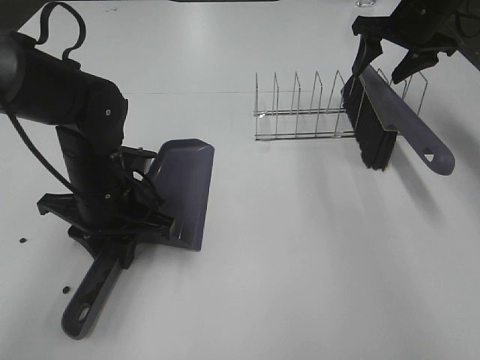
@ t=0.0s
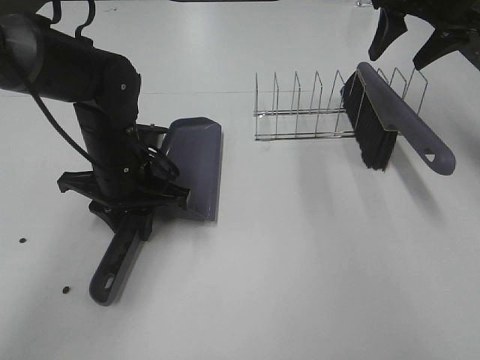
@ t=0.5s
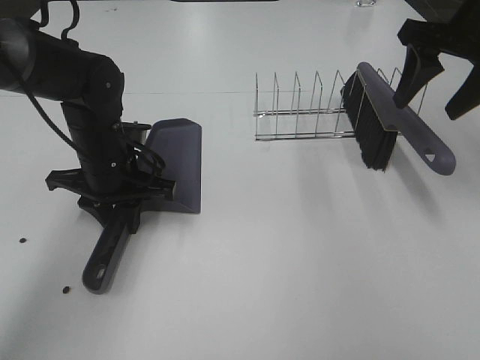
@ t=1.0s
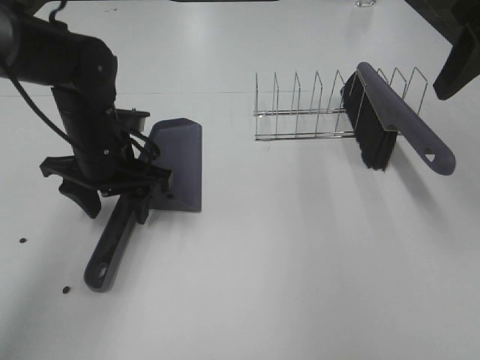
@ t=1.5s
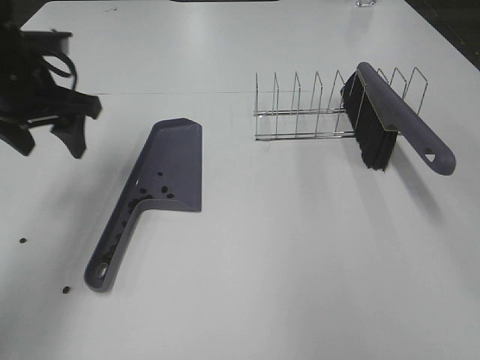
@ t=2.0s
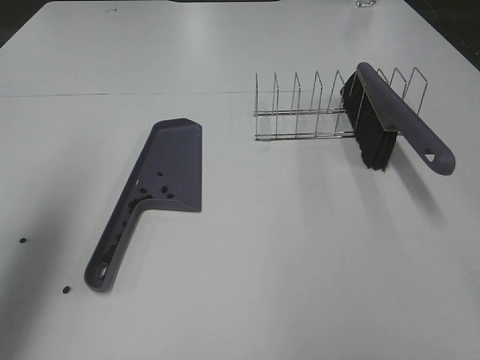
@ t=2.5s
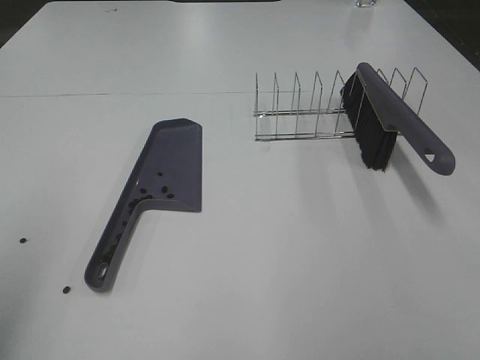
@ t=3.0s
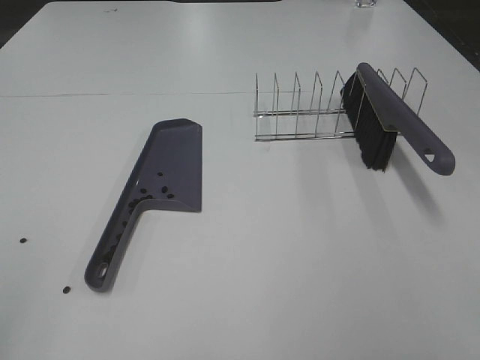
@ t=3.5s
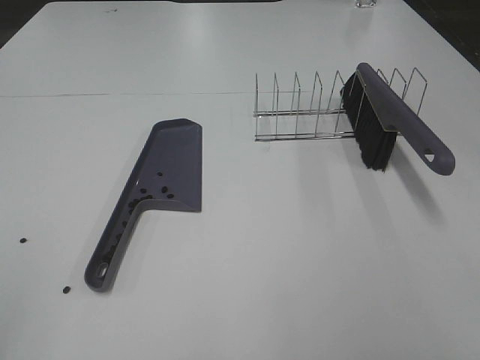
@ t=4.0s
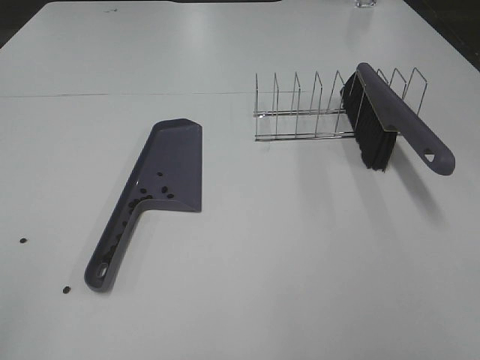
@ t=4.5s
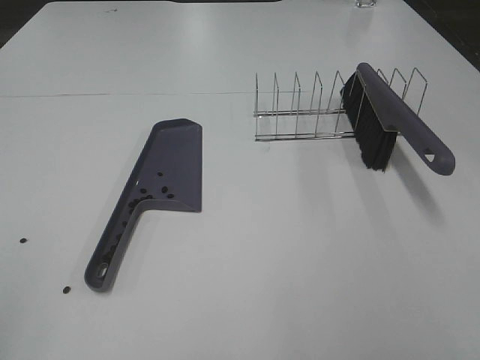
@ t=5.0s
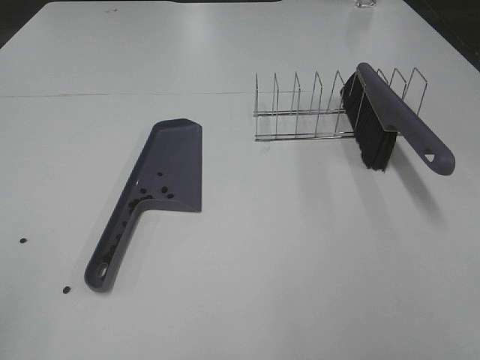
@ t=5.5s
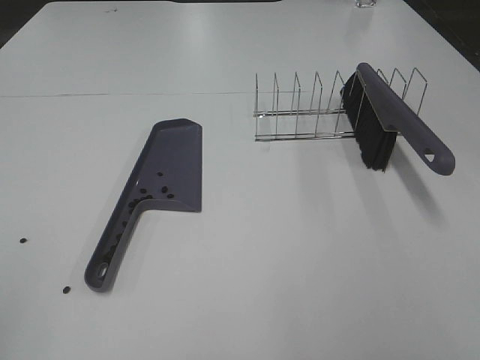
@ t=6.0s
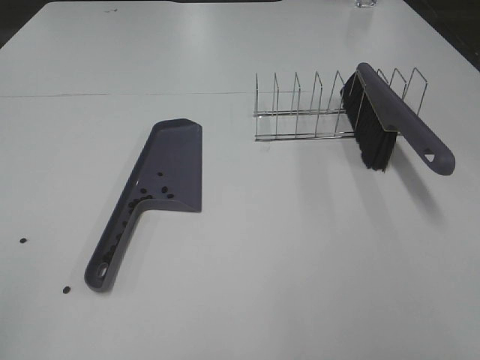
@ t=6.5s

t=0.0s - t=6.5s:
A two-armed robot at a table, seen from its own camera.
Task of the whole recording: Sweep Coffee Bean.
Step, t=0.0s - t=1.0s: Left hand:place the dustpan on the table.
t=0.0s - t=2.0s: The right gripper is displaced backward and upward by roughly 35 cm, while the left gripper is displaced upward, to the left and forward by approximately 15 cm, and opens.
t=2.0s - t=4.5s: The right gripper heads backward and downward, covering approximately 20 cm. Meanwhile the left gripper is displaced backward by about 35 cm.

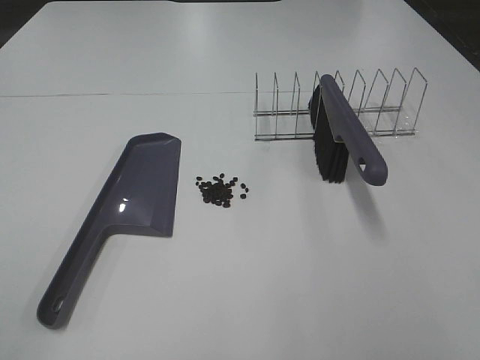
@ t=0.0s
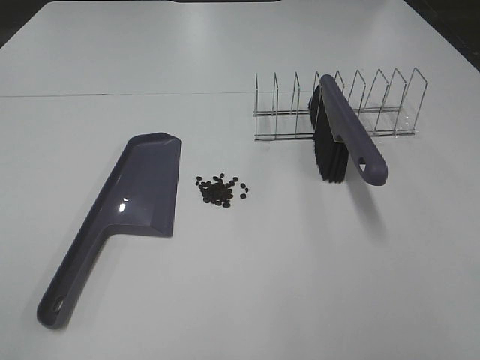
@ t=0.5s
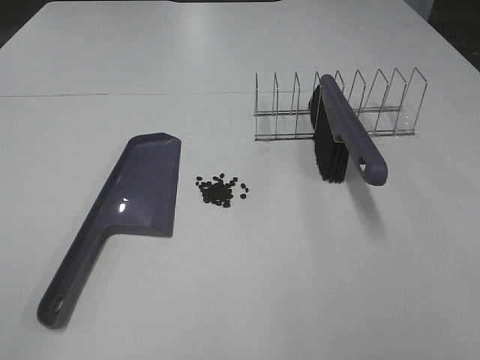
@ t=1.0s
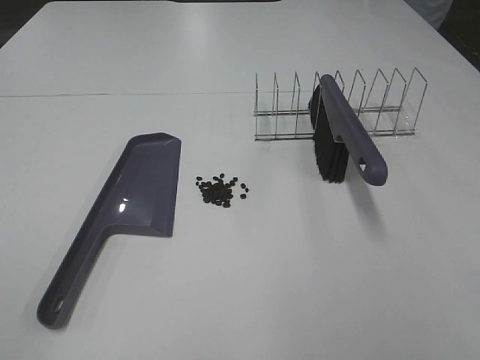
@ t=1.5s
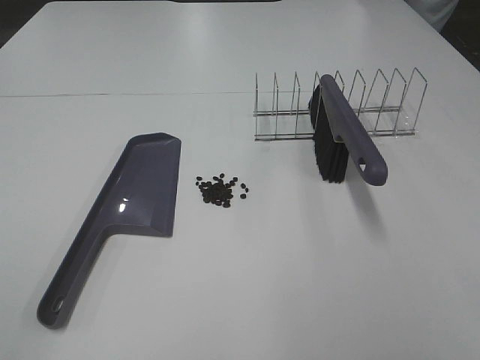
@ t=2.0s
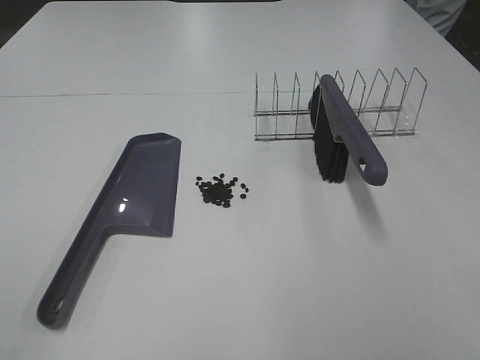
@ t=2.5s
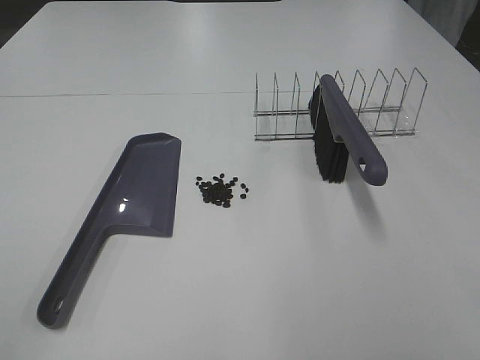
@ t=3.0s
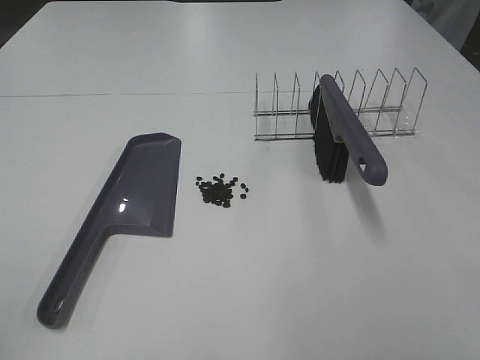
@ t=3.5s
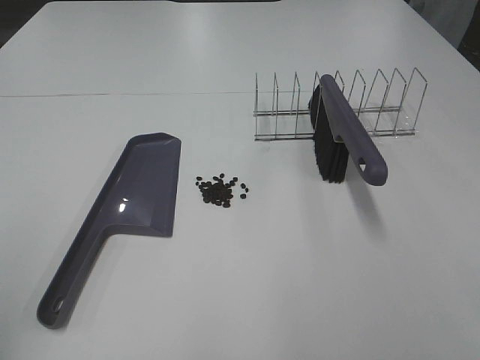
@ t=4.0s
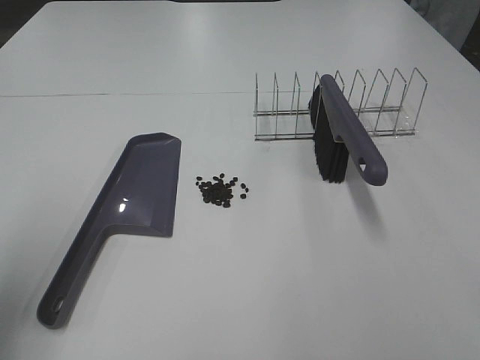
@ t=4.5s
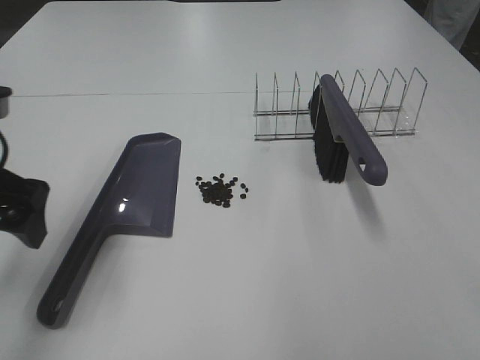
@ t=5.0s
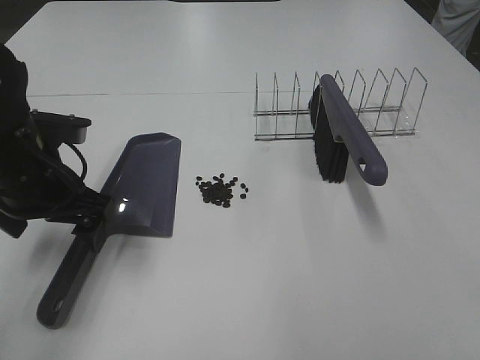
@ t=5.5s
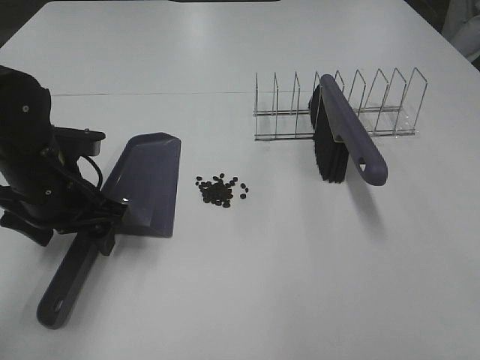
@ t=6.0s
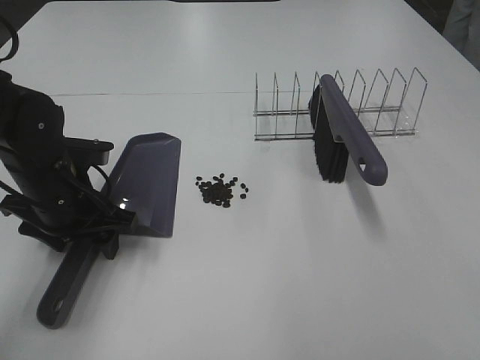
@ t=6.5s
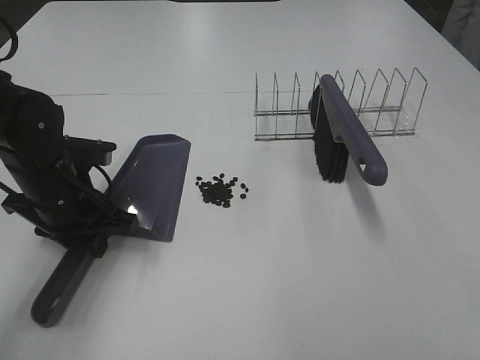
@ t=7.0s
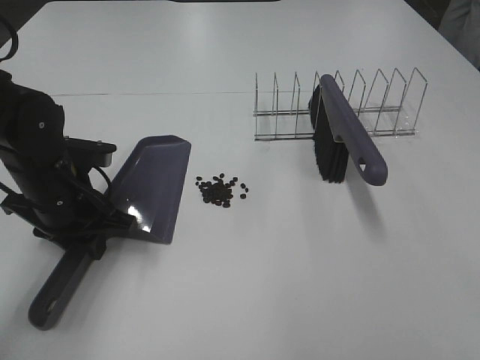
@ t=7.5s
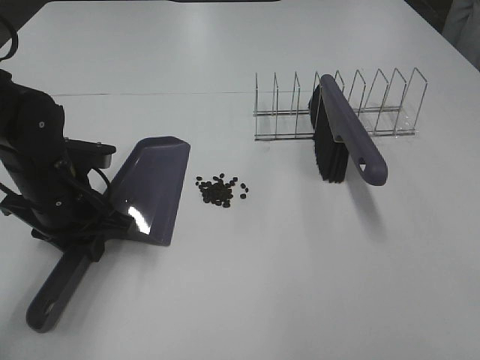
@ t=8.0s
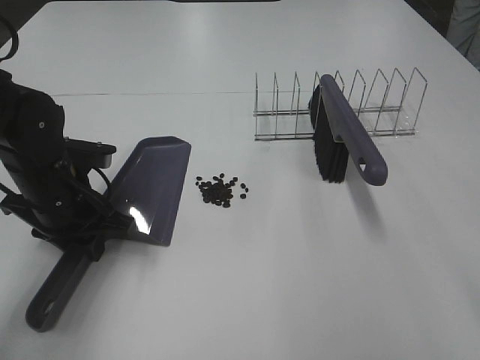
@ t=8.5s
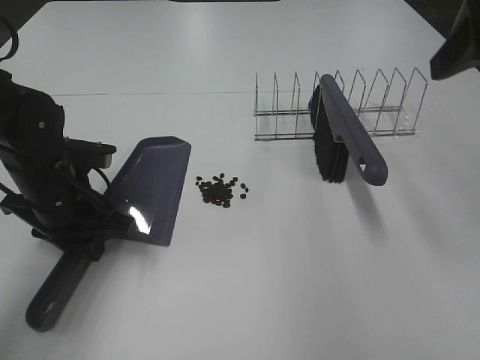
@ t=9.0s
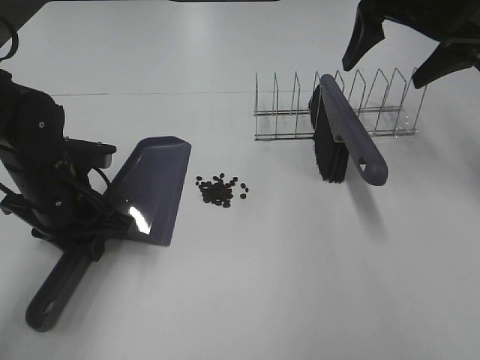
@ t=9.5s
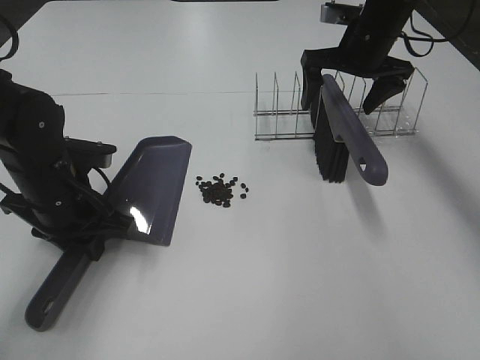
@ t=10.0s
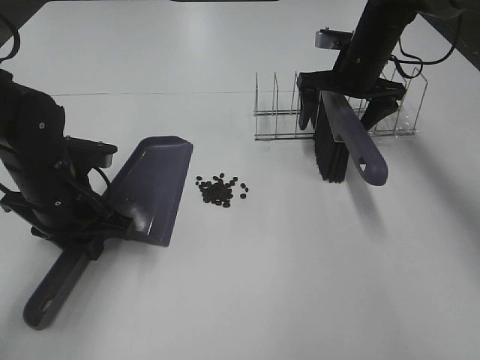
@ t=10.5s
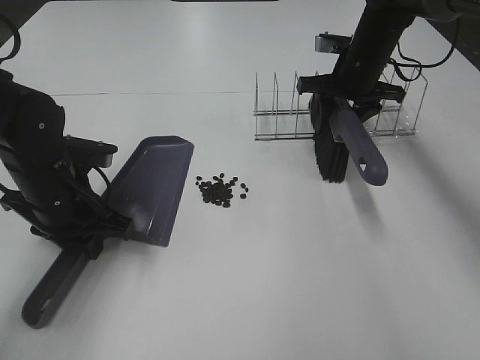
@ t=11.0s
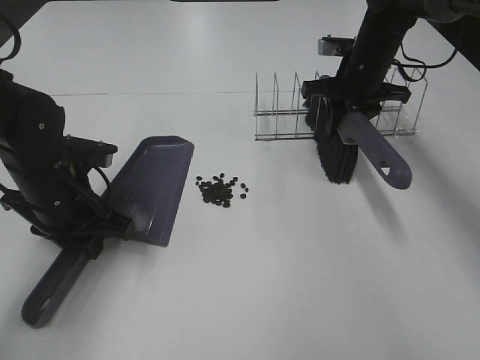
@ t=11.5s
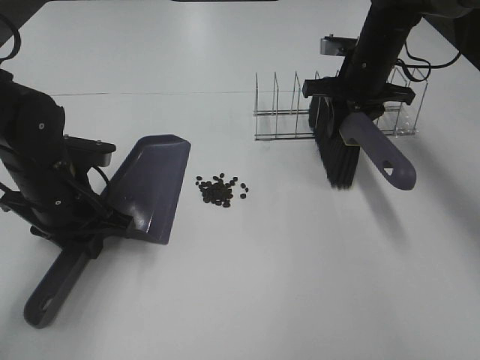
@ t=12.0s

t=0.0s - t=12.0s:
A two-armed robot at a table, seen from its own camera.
Task of the whole recording: Sweep Coffee Bean.
Step, t=0.0s - t=6.5s: Left hand: grab the dustpan.
Step, t=8.5s - t=11.0s: Right hand:grab the broom.
t=4.0s - t=6.0s: The left gripper is displaced forward, downward and to the right by approximately 35 cm.
t=6.0s - t=8.0s: The left gripper closes its fingers.
t=8.0s - t=10.0s: The right gripper moves forward, some 50 cm.
t=10.0s - t=12.0s: The right gripper closes its fingers.

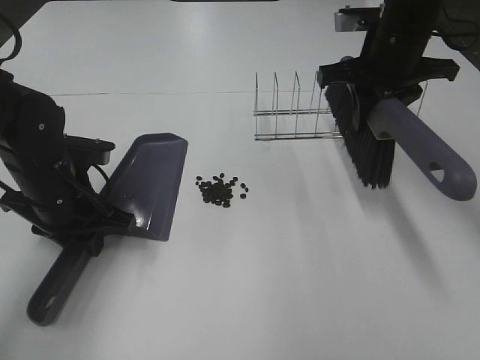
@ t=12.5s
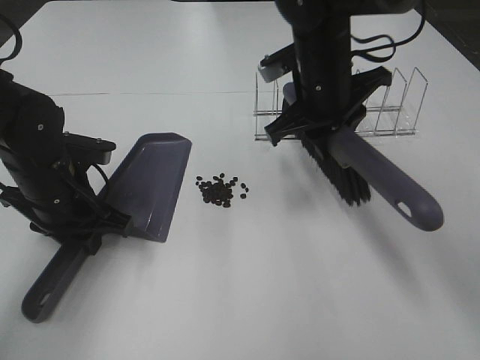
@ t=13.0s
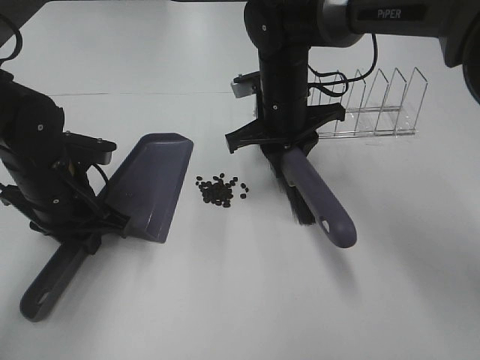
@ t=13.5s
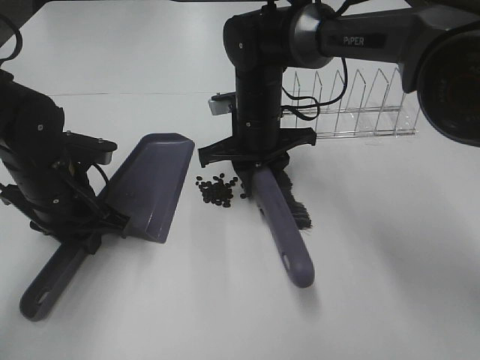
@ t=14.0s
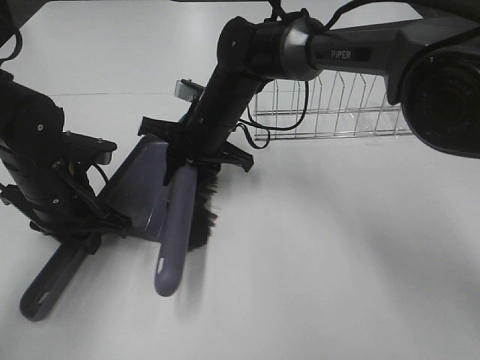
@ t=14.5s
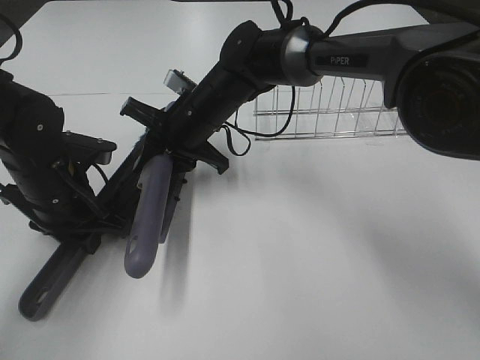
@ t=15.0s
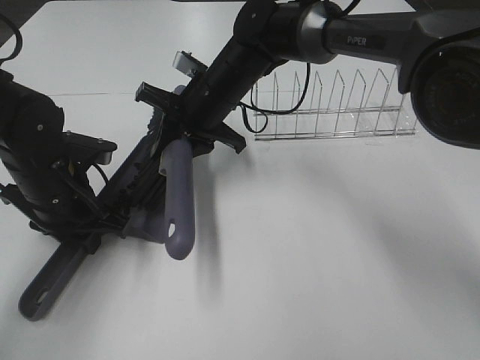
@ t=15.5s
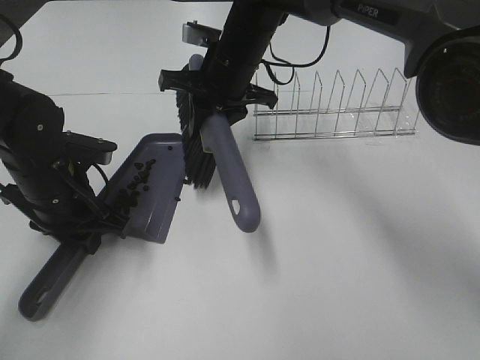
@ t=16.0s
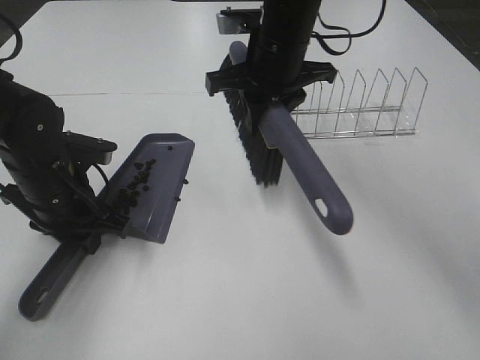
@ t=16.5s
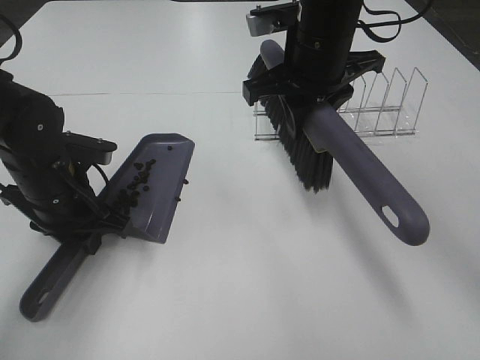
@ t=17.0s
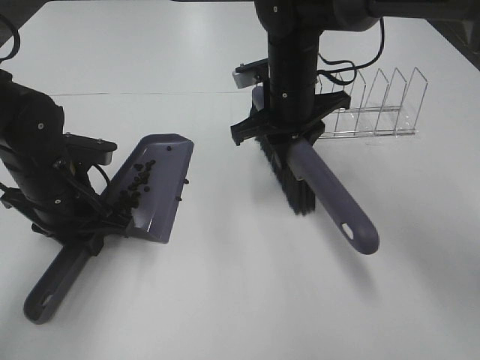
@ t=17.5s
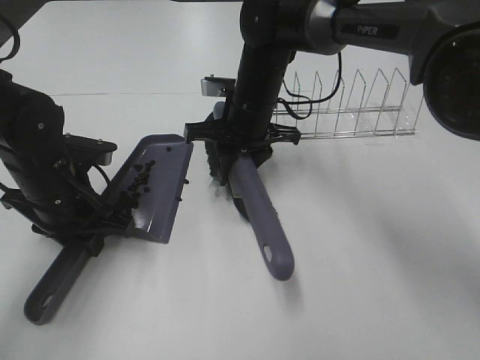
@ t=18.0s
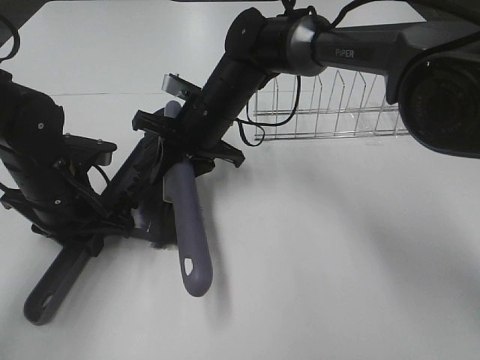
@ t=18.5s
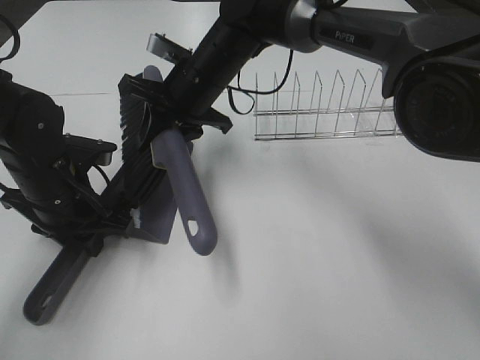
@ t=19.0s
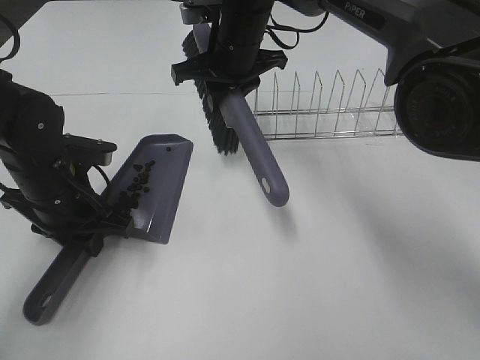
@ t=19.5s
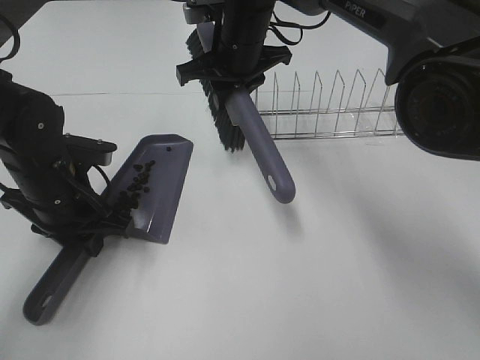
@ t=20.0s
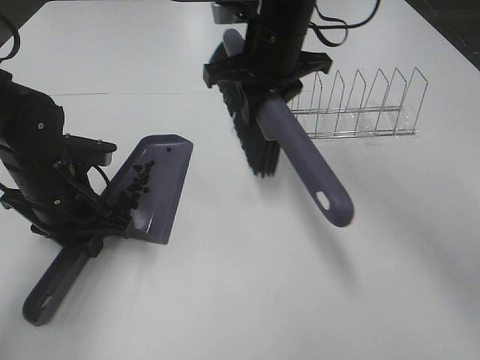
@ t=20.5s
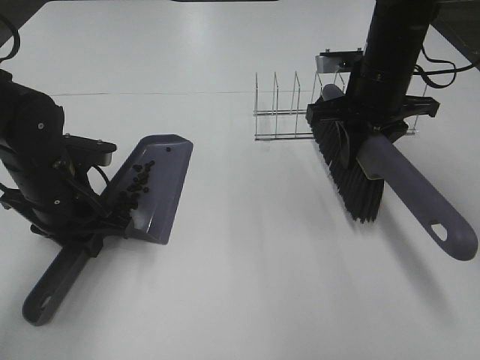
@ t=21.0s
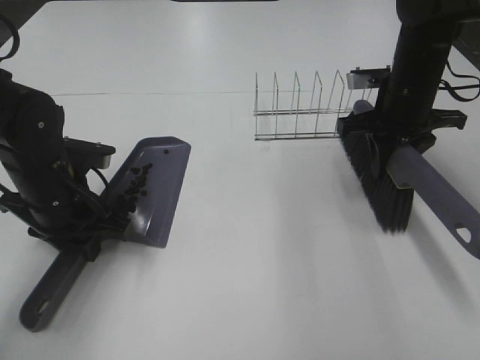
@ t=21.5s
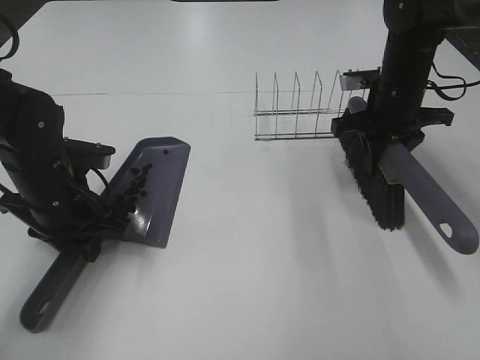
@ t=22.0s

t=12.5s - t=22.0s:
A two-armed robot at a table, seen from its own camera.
Task of the whole recording: Sweep Coffee Bean.
Step, t=12.5s - t=19.0s: Right hand:sweep the coffee beans into the dustpan.
t=12.5s - t=14.5s: The right gripper travels to the left and downward by approximately 25 cm.
t=14.5s - t=16.5s: The right gripper moves upward and to the right, roughly 15 cm.
t=16.5s - t=18.0s: The right gripper is displaced downward by roughly 10 cm.
t=18.0s - t=20.0s: The right gripper goes roughly 5 cm upward.
t=20.0s - t=22.0s: The right gripper is displaced to the right by roughly 20 cm.
